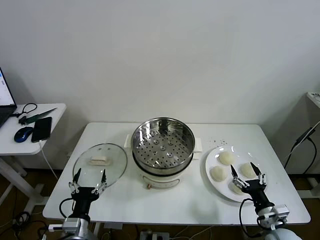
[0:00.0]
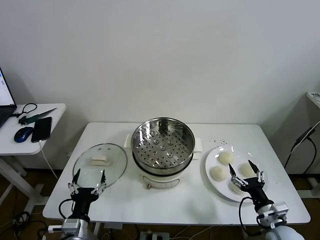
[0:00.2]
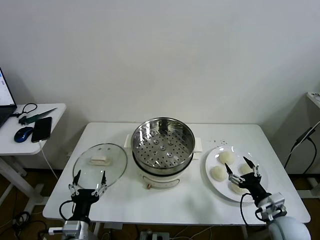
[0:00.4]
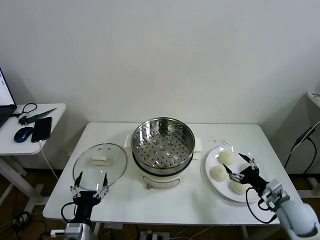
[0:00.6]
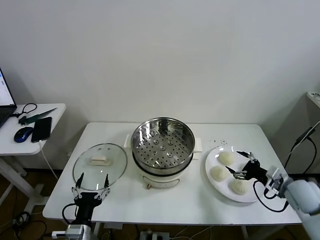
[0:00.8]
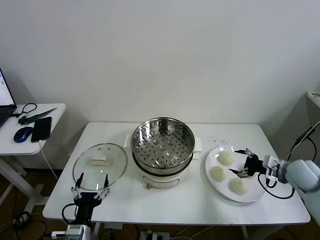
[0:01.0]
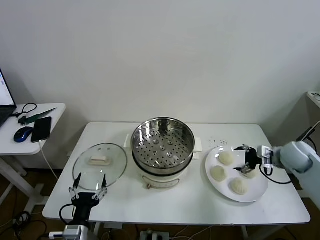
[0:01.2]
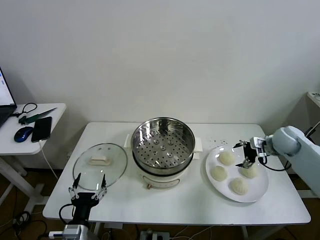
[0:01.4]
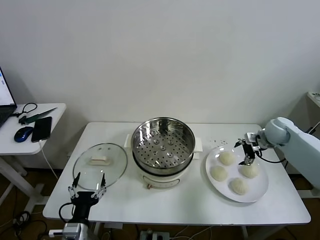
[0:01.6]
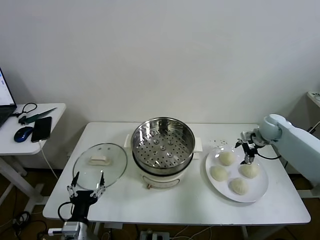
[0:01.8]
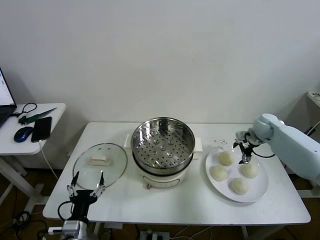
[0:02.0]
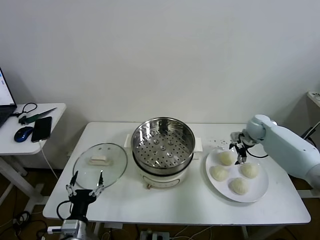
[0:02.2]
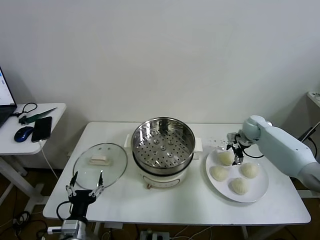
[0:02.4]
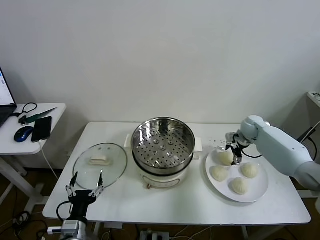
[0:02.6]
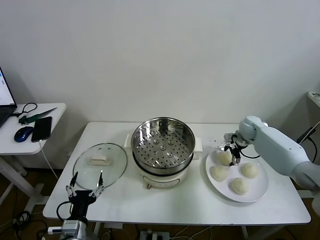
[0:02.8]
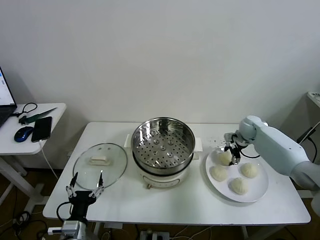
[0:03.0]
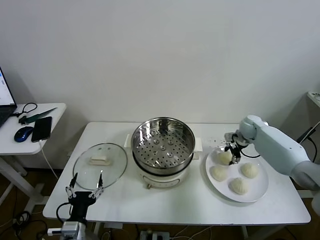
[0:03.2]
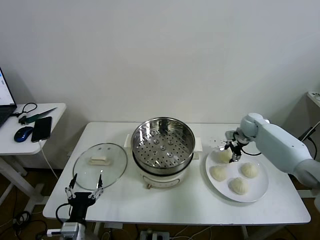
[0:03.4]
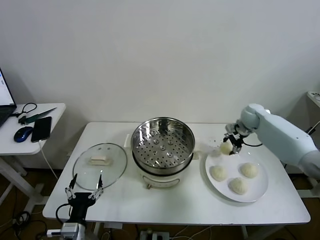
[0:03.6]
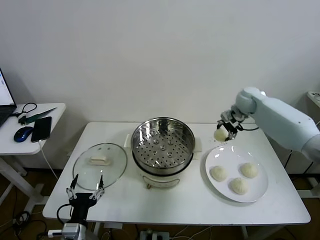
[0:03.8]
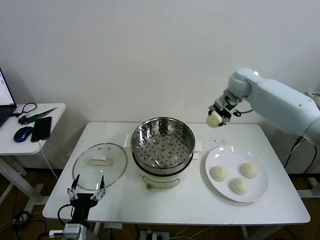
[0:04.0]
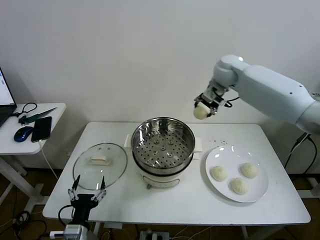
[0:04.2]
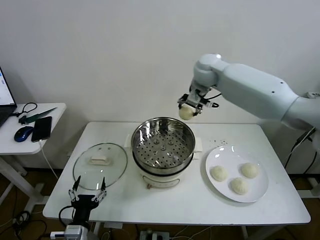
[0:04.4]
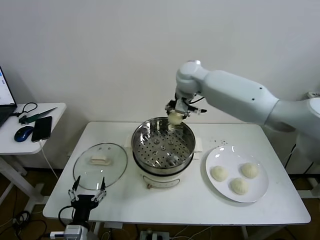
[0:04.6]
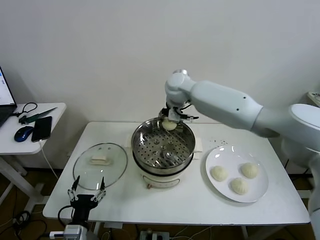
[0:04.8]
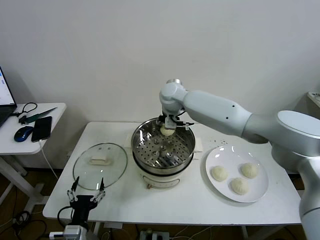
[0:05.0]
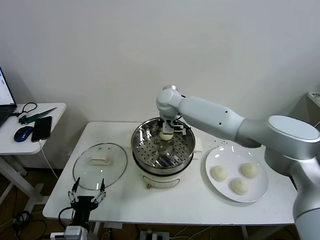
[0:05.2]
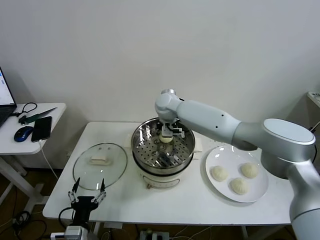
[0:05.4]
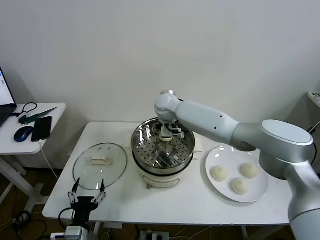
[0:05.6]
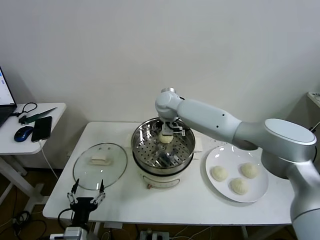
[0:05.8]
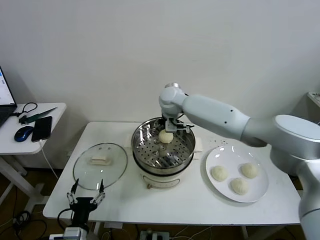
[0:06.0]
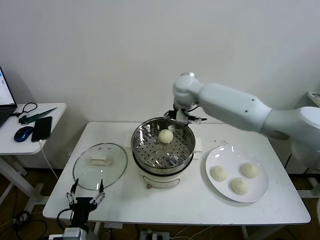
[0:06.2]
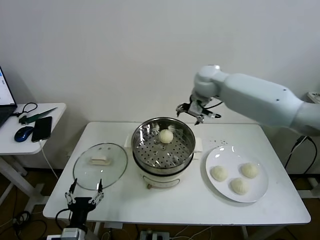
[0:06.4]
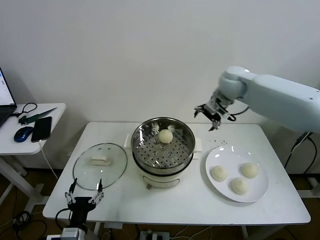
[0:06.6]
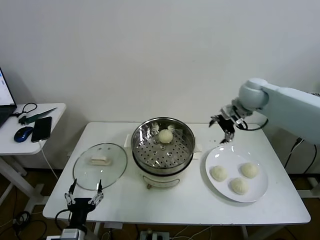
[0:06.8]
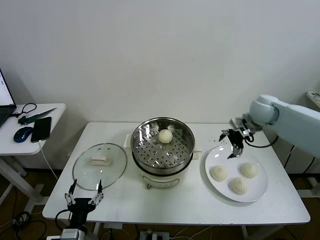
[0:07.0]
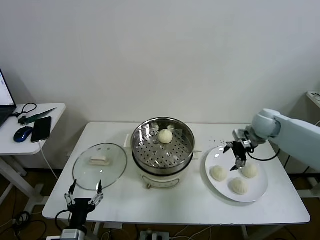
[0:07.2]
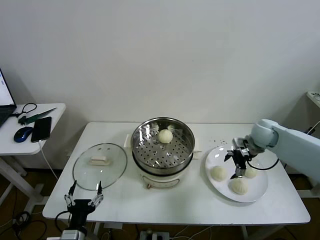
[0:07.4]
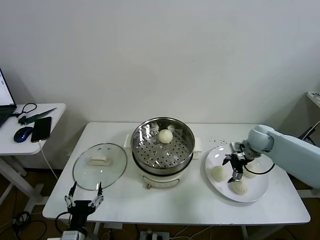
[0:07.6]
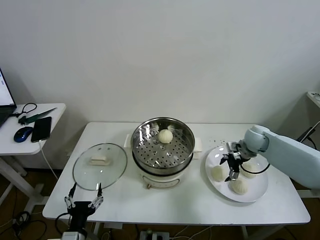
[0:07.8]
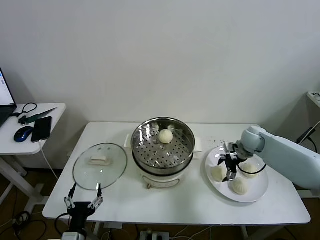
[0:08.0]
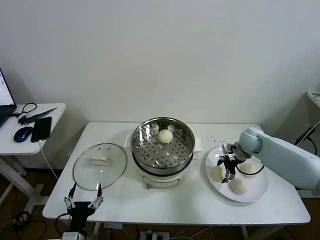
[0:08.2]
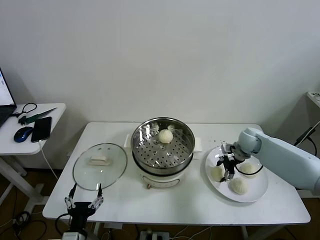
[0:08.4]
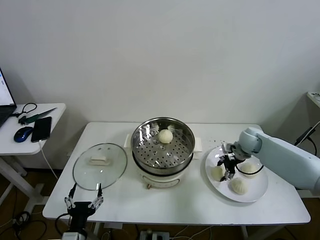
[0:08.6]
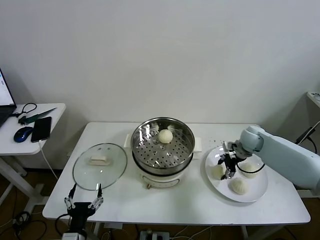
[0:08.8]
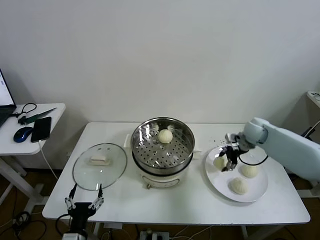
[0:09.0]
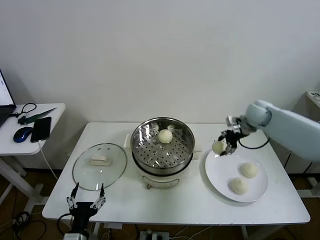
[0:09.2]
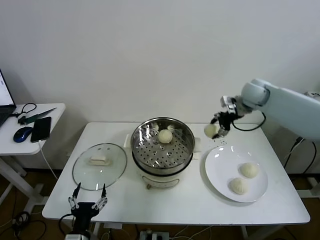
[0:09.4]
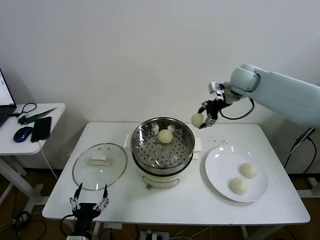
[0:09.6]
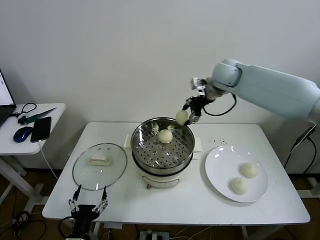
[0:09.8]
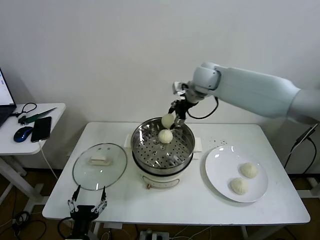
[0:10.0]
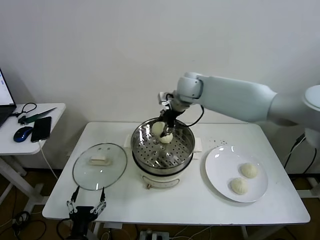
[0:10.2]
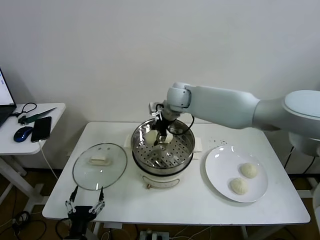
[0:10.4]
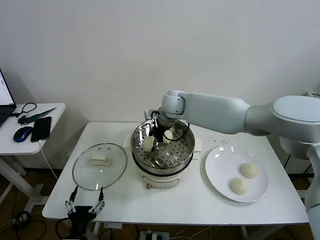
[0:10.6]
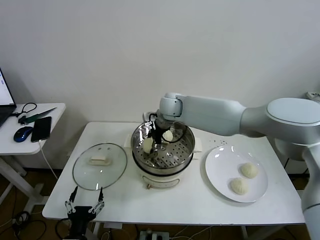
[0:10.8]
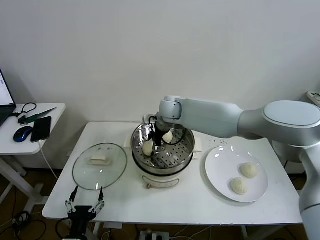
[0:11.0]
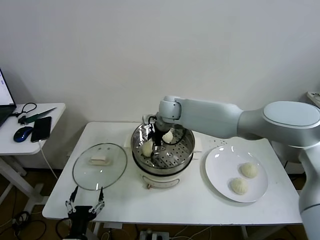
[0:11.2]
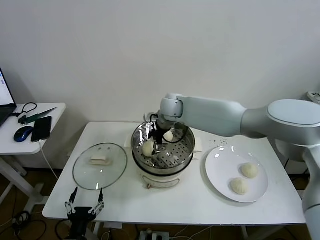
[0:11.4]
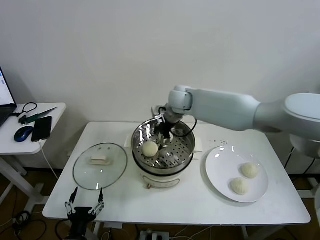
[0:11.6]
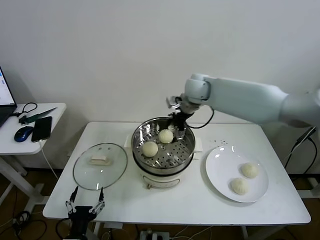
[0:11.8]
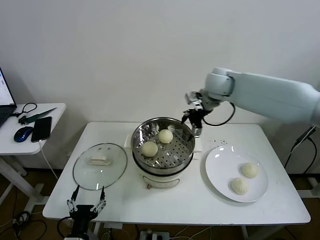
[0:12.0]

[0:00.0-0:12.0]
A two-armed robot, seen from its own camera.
Task of the whole recording: take steamed baozi put them in steamer then cover it.
Step, 0:00.0 to 0:03.2: Grasp the baozi in the plate with right gripper.
Step, 0:03.4 to 0:05.8: Place the baozi on the steamer with right gripper.
Step, 0:06.0 to 0:08.6: Grasp the baozi in the plate with right gripper.
Step, 0:08.8 to 0:11.2: Place the baozi on the steamer with right gripper.
0:01.6 to 0:03.0: The right gripper shifts some 5 cm forward and downward, and closes up.
0:03.0 to 0:04.4: The right gripper heads to the left and upward, covering about 35 cm.
0:04.4 to 0:06.0: The right gripper moves downward and to the left, approximately 10 cm, and opens its fingers.
0:06.0 to 0:07.6: The right gripper moves to the right and downward, roughly 35 cm.
0:07.6 to 0:09.0: The right gripper shifts by some 5 cm, and closes.
0:09.0 to 0:10.4: The right gripper is displaced to the left by some 30 cm.
0:10.4 to 0:12.0: The right gripper is displaced to the right and upward by some 15 cm, and opens.

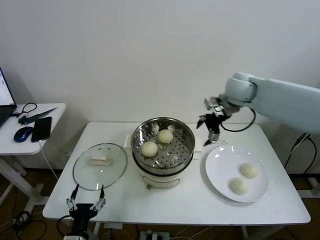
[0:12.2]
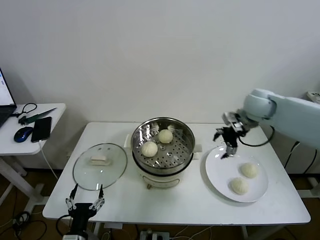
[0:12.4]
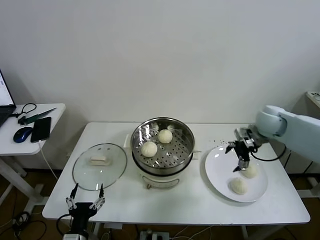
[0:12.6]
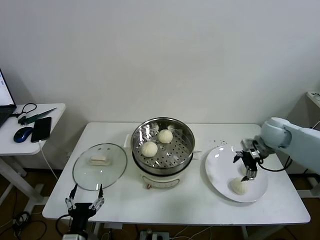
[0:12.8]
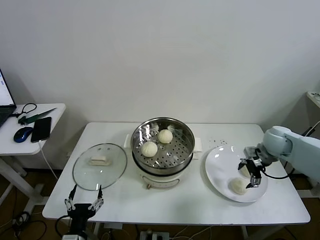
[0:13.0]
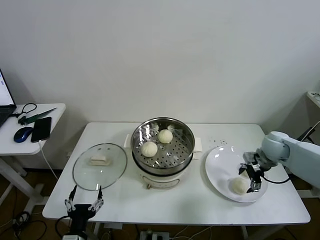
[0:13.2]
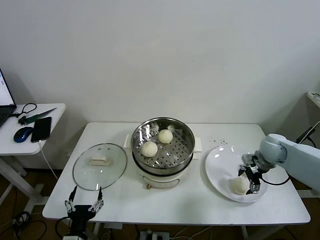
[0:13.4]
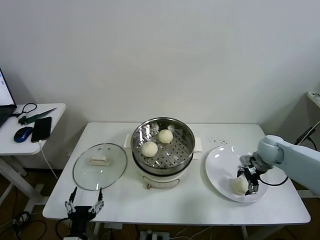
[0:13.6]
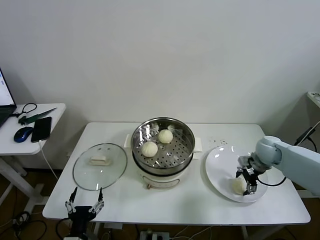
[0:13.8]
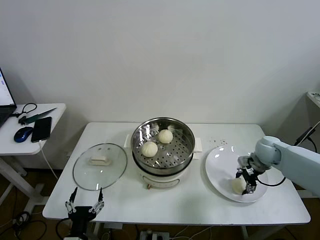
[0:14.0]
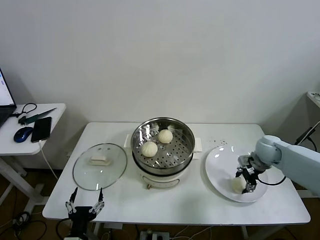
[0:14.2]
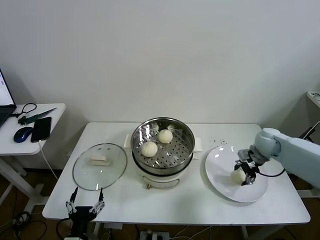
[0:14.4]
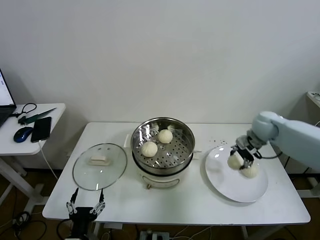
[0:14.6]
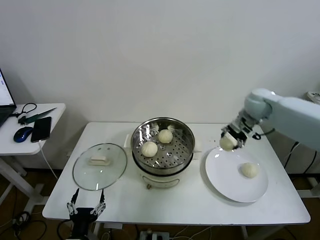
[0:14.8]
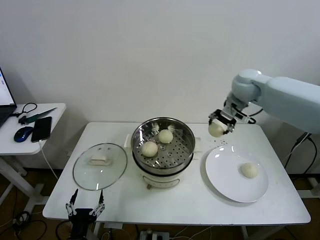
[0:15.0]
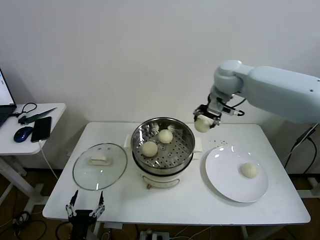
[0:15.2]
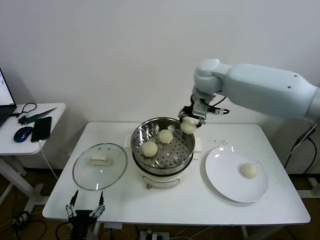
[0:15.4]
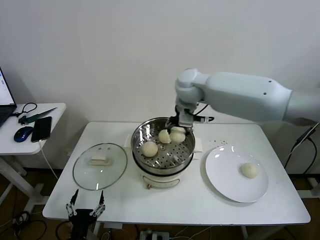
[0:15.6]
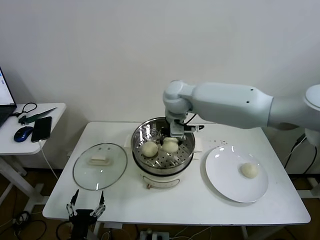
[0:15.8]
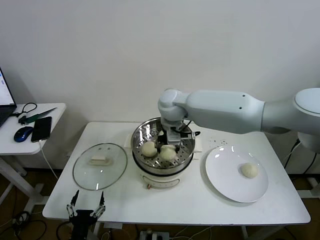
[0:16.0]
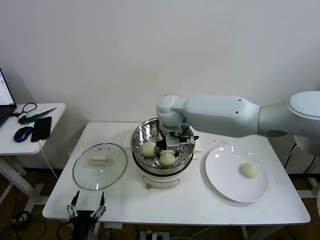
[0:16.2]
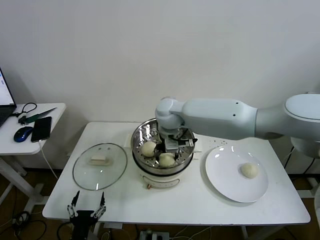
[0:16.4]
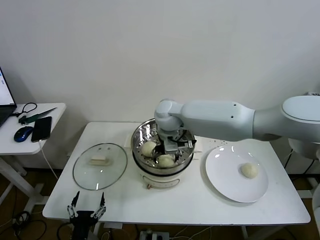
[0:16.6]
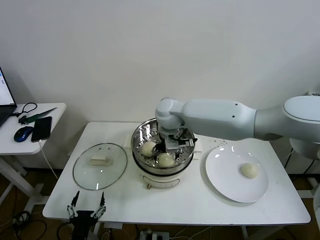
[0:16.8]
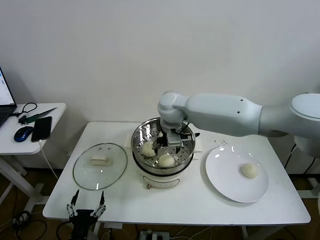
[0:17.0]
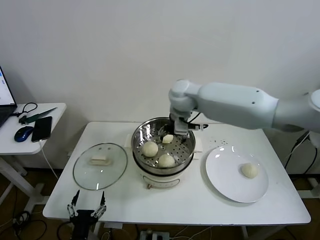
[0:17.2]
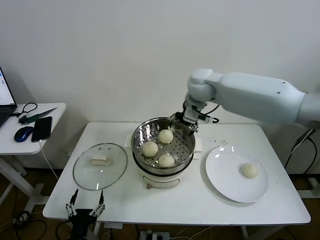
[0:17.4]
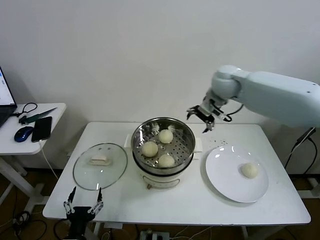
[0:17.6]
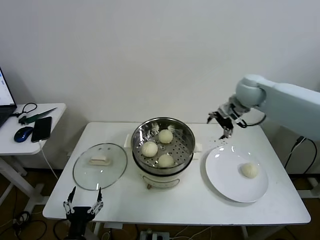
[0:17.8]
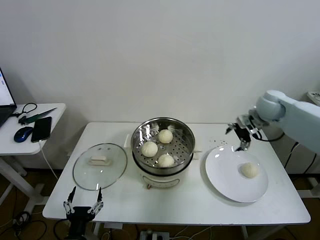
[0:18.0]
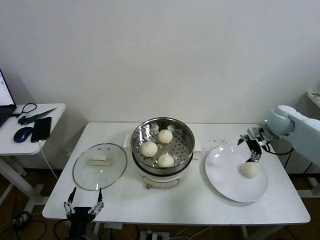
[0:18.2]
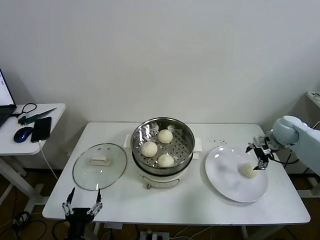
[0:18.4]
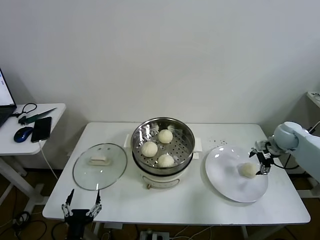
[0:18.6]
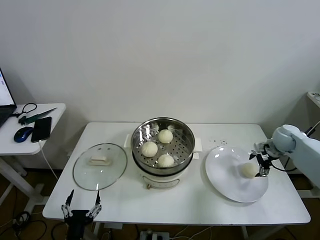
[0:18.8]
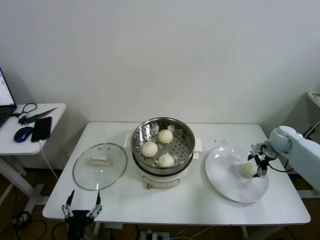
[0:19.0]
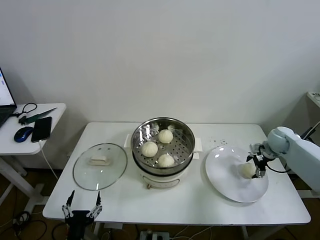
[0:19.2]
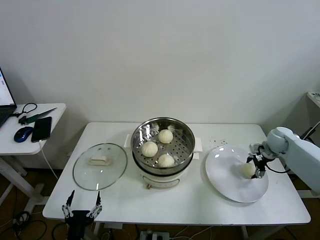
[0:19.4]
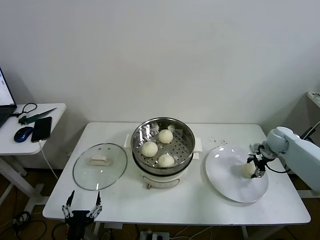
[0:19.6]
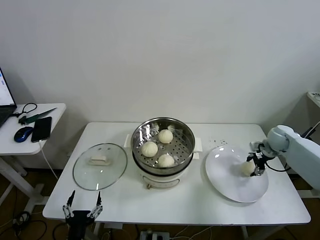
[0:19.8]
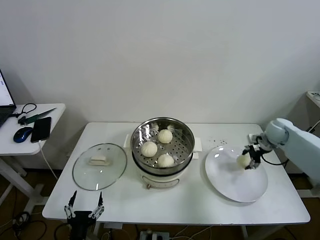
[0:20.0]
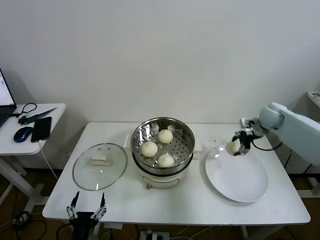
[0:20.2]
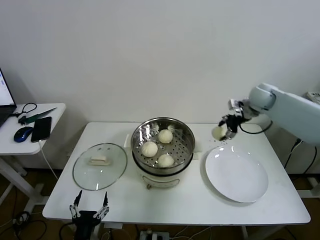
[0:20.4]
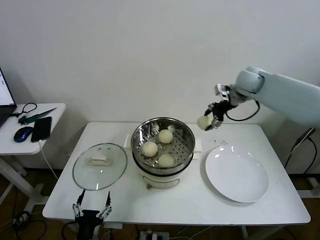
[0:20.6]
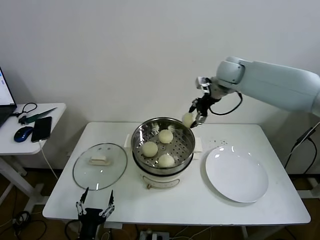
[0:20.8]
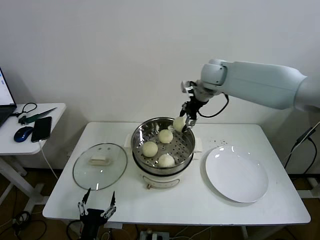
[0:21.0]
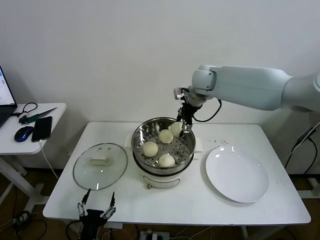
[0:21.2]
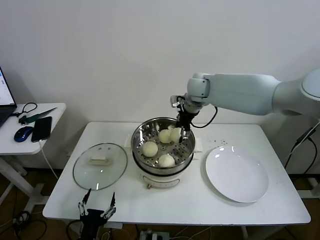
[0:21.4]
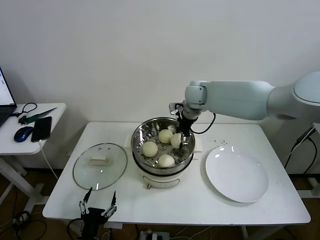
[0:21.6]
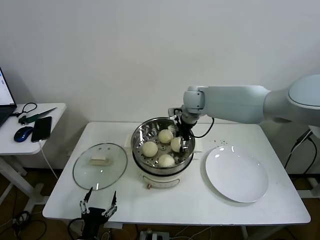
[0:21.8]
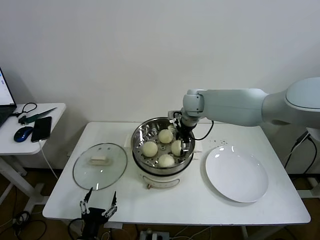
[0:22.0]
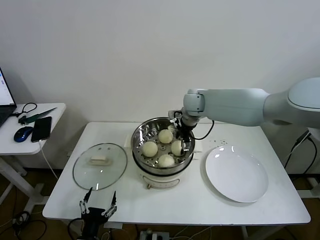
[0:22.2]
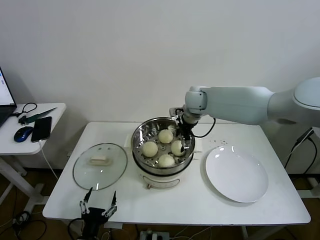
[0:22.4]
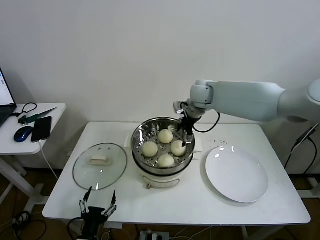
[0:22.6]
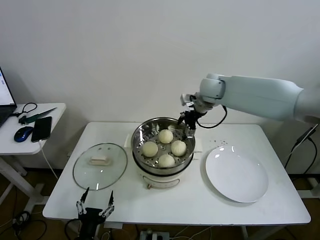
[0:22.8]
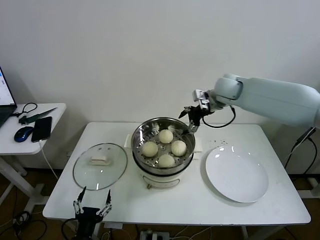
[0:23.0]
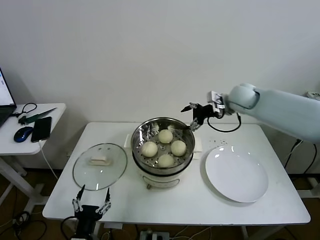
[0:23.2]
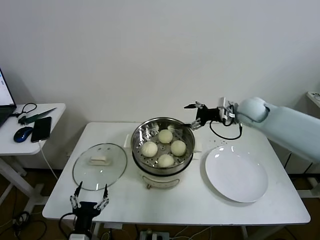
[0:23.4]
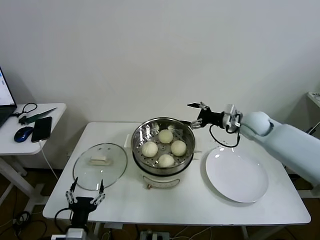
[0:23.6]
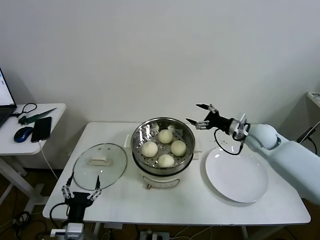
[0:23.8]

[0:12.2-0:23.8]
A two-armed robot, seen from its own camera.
Task of the whole recording: take steamed baozi put them in steamer then cover it.
Step, 0:12.2 to 0:14.0: Grasp the baozi in the plate with right gripper.
Step, 0:14.2 to 0:16.8: Place the baozi on the steamer with right gripper.
Step, 0:17.0 to 0:19.6: Grasp the baozi in the plate with right gripper.
Step, 0:19.8 to 0:22.2: Place the baozi on the steamer with right gripper.
0:12.2 to 0:13.6: The right gripper is displaced downward and to the right by about 25 cm.
0:13.6 to 0:15.0: The right gripper shifts about 30 cm upward and to the left, and closes its fingers.
0:15.0 to 0:16.6: The right gripper goes approximately 25 cm to the left and downward, and opens up.
0:16.6 to 0:18.0: The right gripper travels to the right by about 35 cm.
0:18.0 to 0:19.4: The right gripper is displaced downward and to the right by roughly 15 cm, and closes its fingers.
0:19.4 to 0:21.0: The right gripper is displaced to the left and upward by approximately 35 cm, and closes its fingers.
0:21.0 to 0:22.4: The right gripper shifts about 10 cm downward, and opens its fingers.
0:22.4 to 0:23.8: The right gripper shifts roughly 25 cm to the right, backward and downward.
